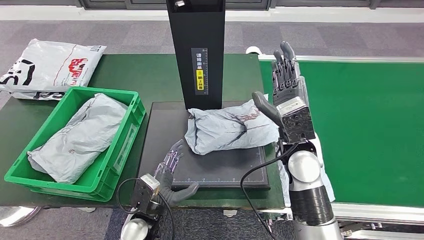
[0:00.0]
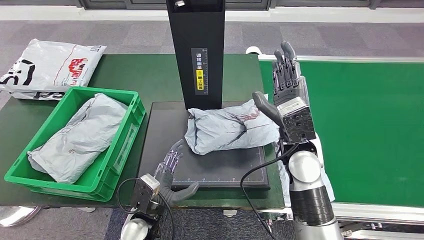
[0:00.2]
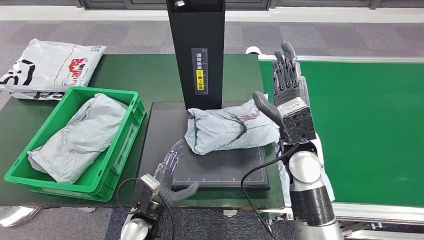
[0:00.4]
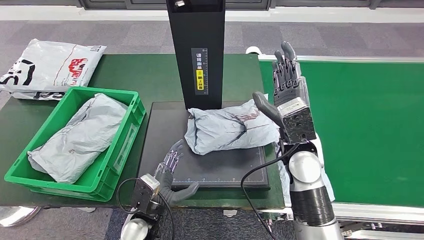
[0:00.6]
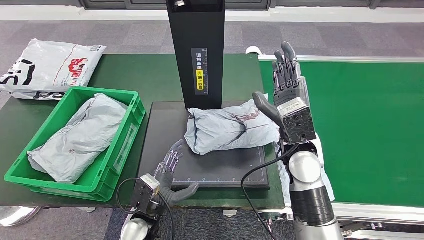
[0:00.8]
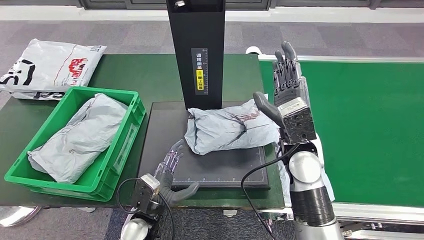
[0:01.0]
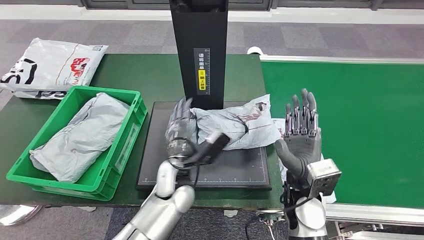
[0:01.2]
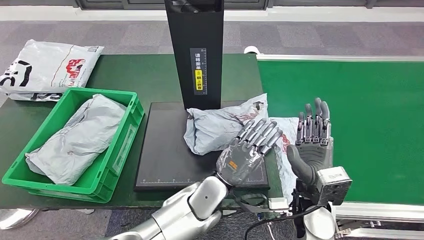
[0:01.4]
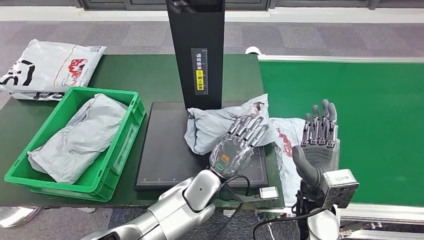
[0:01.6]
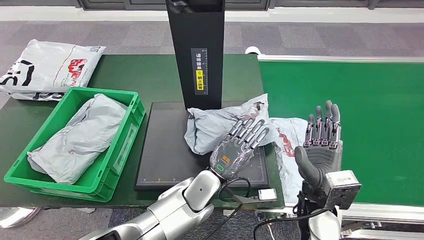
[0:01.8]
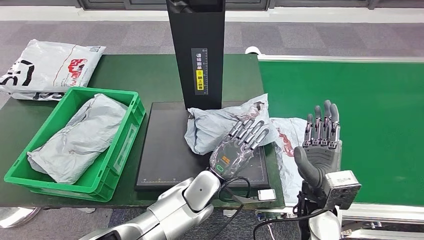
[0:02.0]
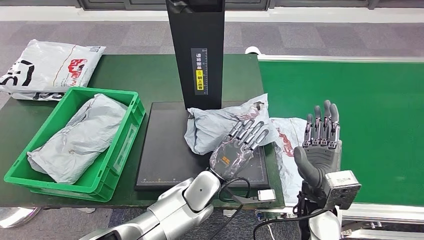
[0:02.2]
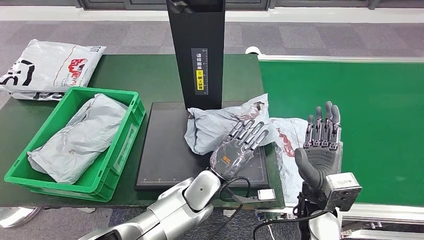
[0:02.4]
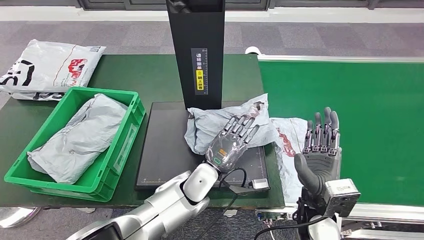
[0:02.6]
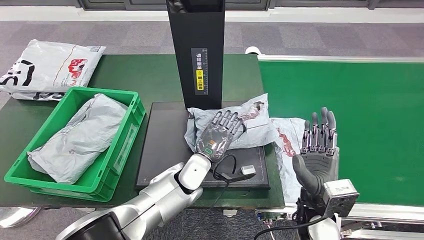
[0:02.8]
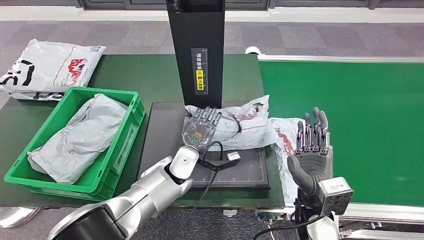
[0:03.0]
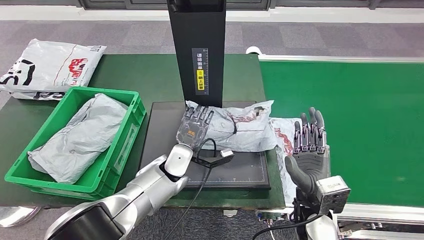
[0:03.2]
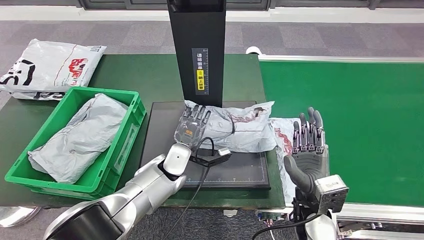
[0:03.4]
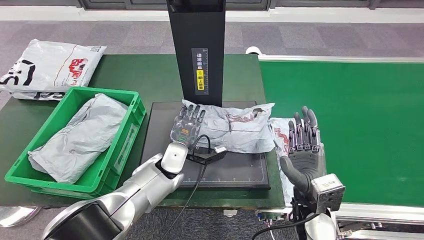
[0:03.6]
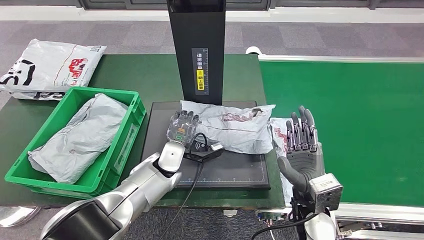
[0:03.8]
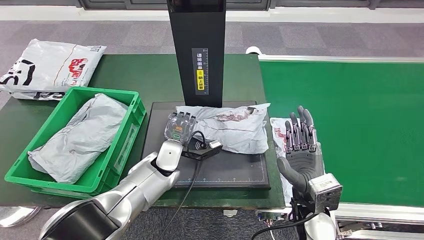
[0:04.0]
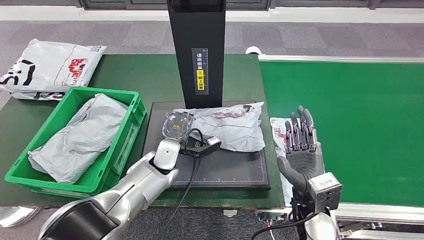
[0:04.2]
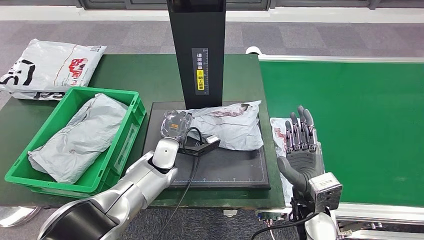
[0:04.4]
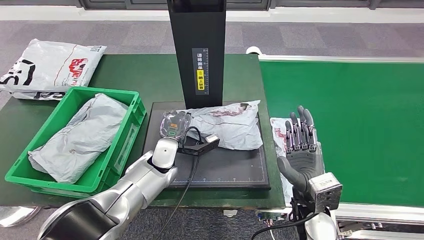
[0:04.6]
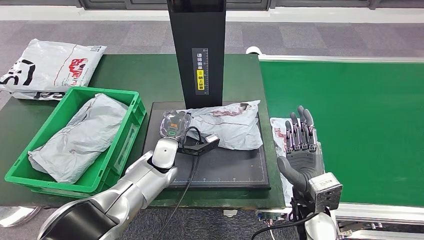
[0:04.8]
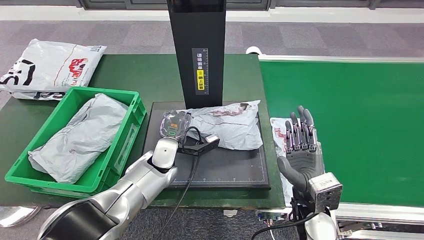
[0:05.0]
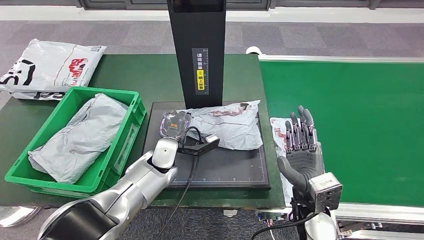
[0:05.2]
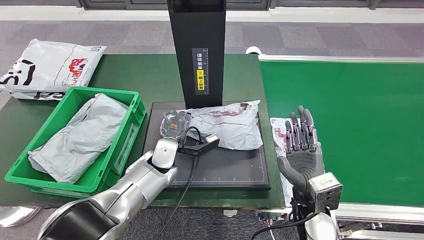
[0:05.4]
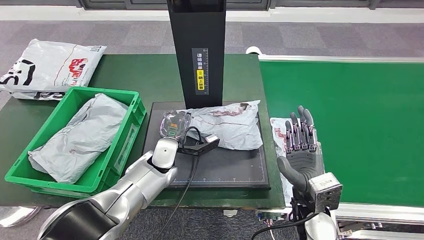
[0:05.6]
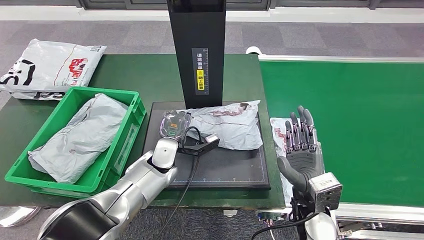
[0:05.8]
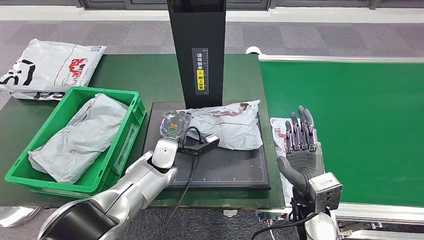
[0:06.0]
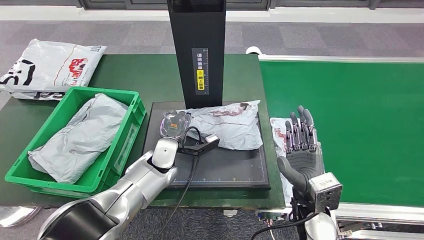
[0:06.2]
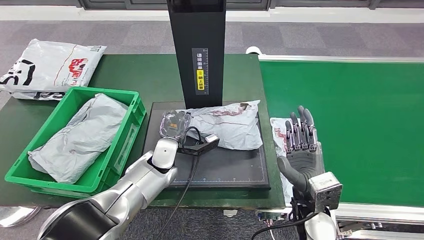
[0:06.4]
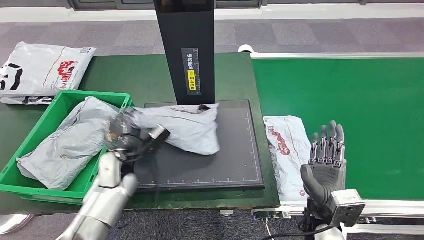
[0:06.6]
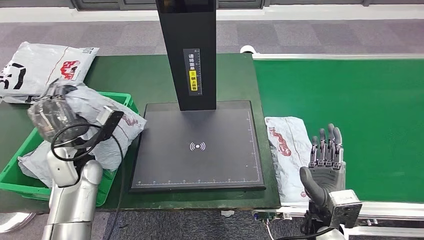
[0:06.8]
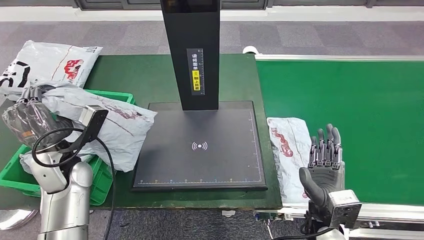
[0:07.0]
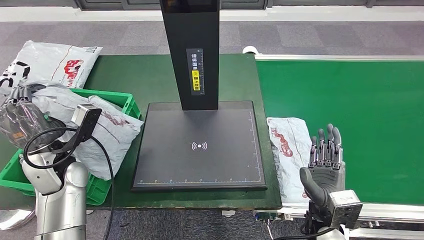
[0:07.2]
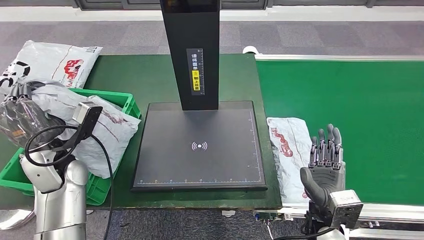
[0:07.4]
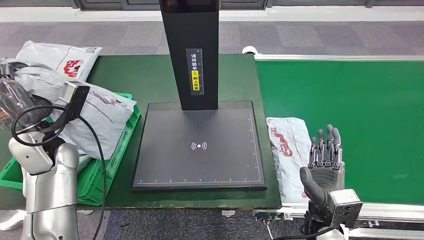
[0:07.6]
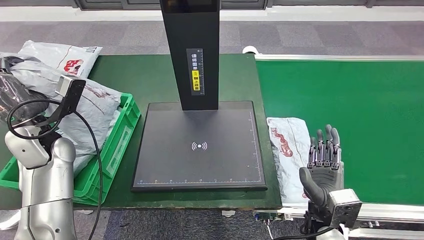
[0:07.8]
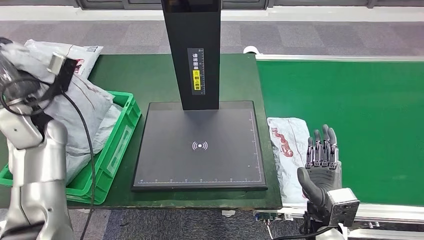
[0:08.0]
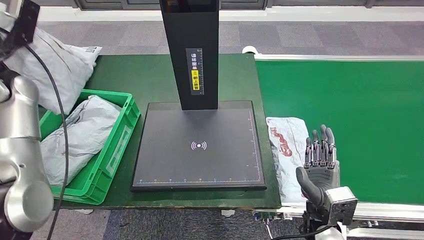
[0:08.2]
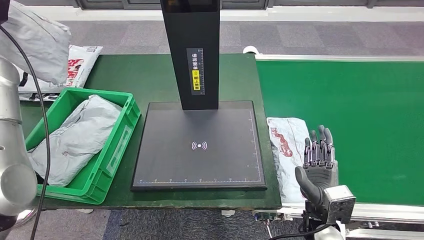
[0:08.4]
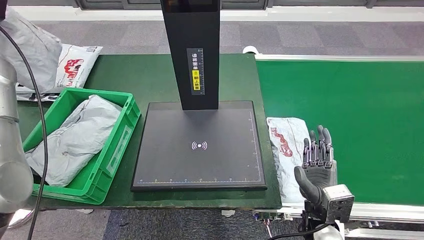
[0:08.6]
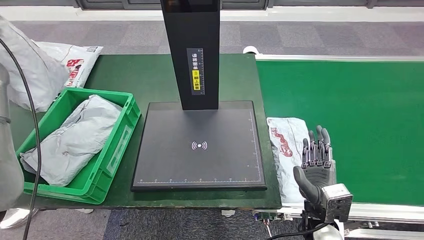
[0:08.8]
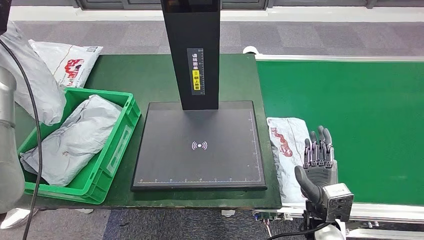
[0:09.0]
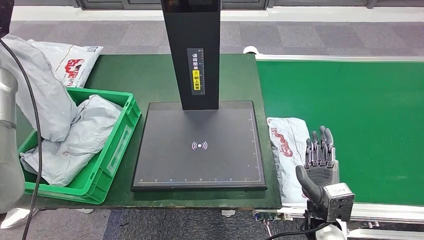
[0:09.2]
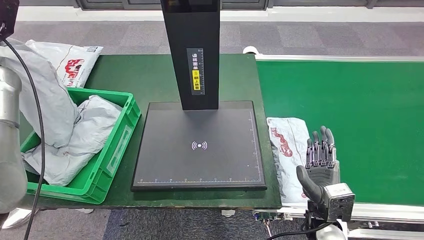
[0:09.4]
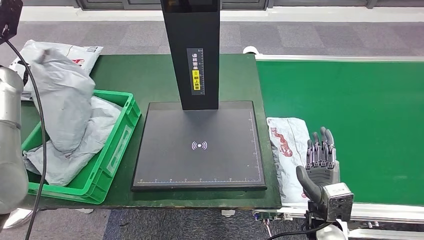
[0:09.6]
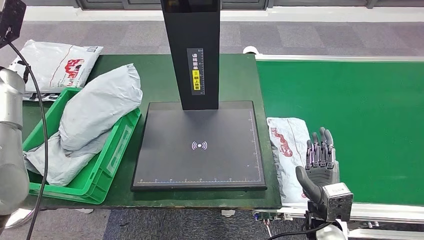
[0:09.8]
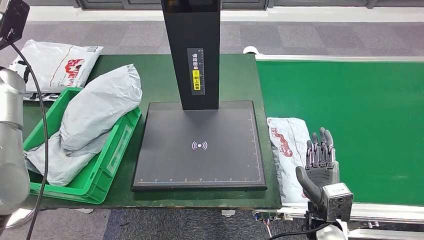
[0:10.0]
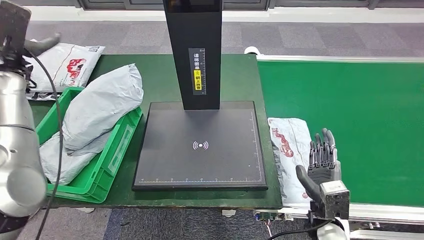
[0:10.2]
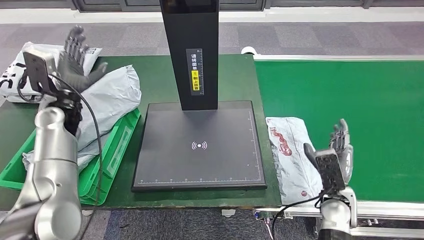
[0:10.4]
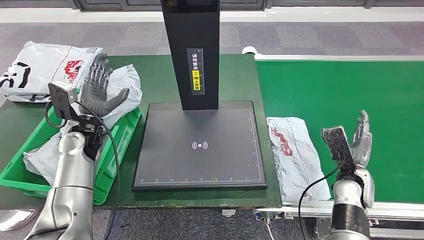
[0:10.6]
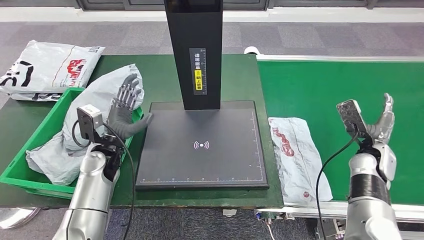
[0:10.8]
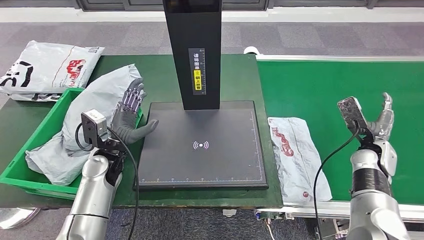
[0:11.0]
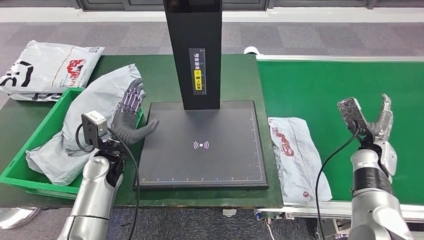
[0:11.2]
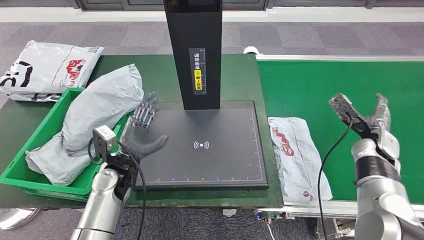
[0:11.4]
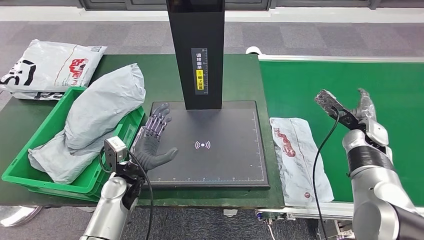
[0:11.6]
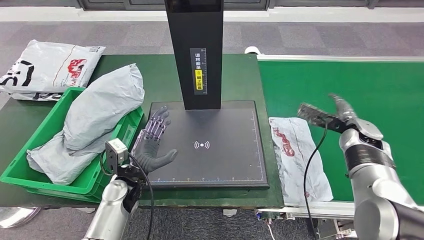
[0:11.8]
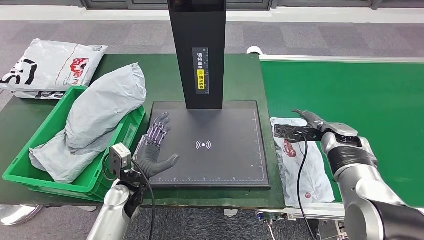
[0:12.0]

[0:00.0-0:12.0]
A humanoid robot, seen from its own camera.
Step, 0:00.8 to 0:07.8: Pick up the parcel from the inbound machine.
Step, 0:08.0 to 0:11.0: Place the parcel into the delivery box.
0:00.0 to 0:01.6: The left hand heads to the right, upward and forward, covering about 20 cm, while the right hand is displaced backward and downward by about 15 cm.
0:01.6 to 0:03.0: The left hand heads to the left and forward, covering some 10 cm.
0:03.0 to 0:04.4: The left hand ends up roughly 5 cm from where it was.
0:04.4 to 0:06.0: Both hands stay put.

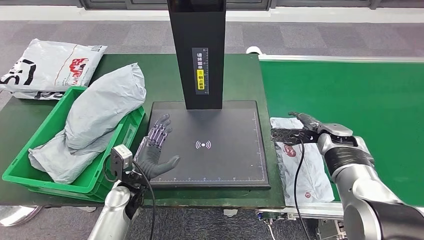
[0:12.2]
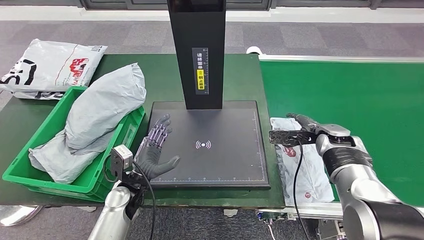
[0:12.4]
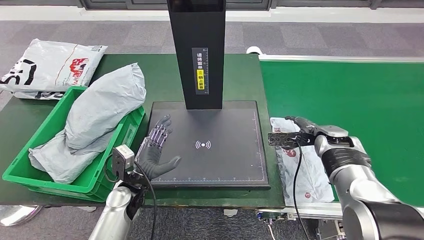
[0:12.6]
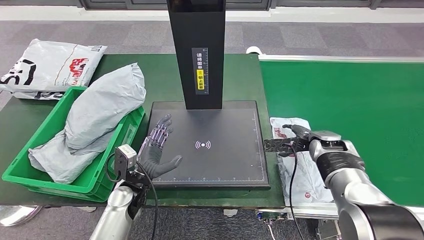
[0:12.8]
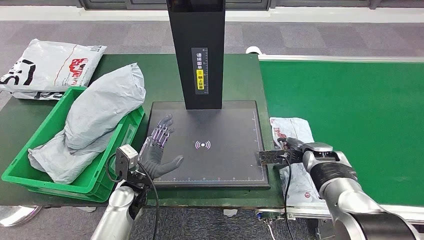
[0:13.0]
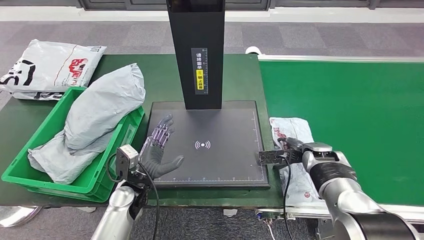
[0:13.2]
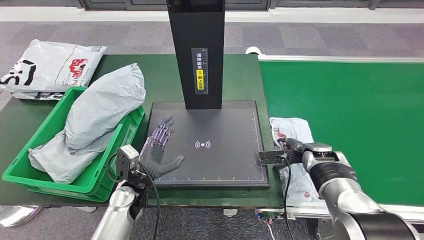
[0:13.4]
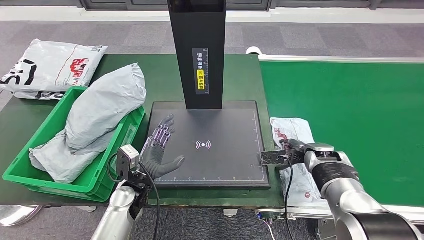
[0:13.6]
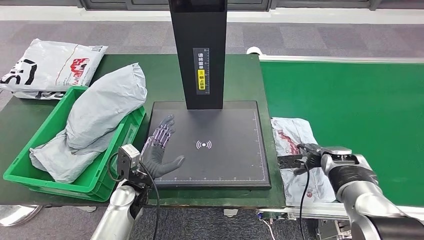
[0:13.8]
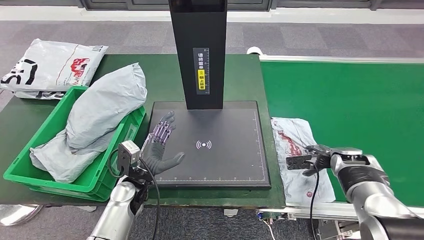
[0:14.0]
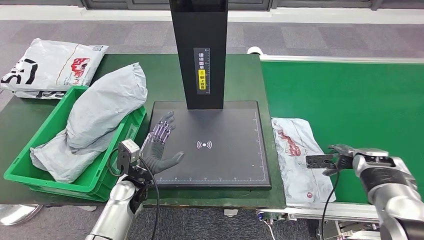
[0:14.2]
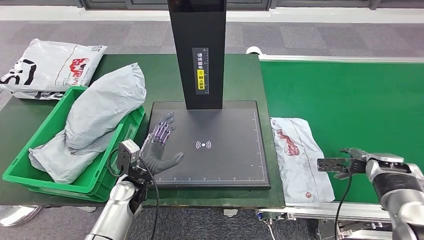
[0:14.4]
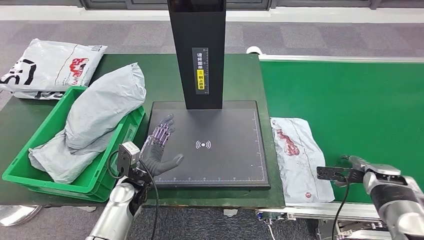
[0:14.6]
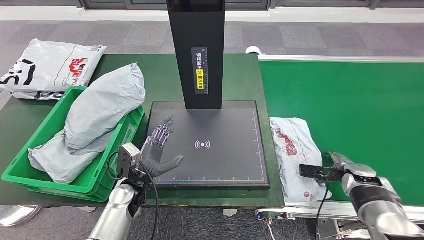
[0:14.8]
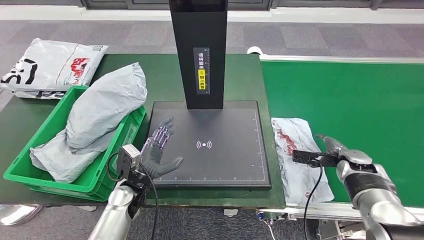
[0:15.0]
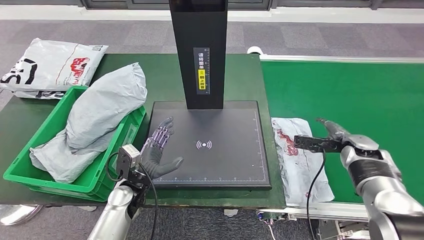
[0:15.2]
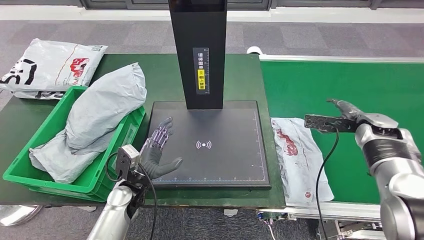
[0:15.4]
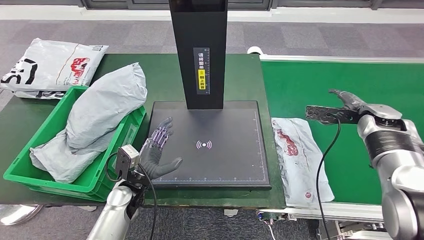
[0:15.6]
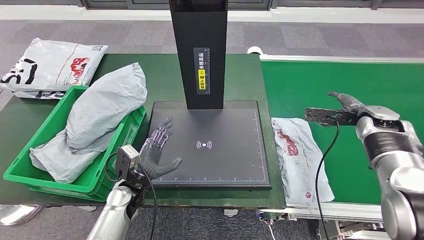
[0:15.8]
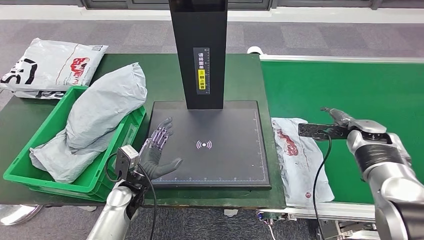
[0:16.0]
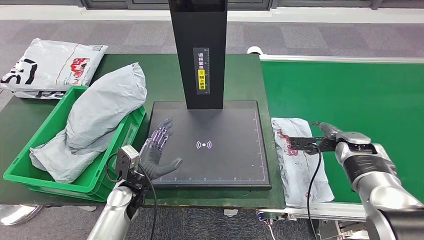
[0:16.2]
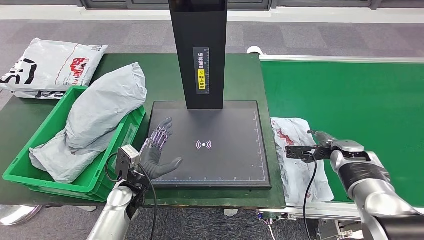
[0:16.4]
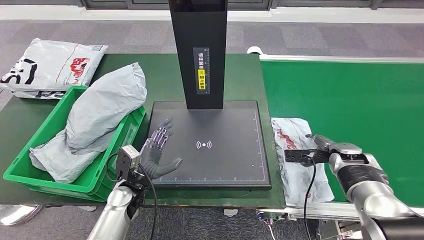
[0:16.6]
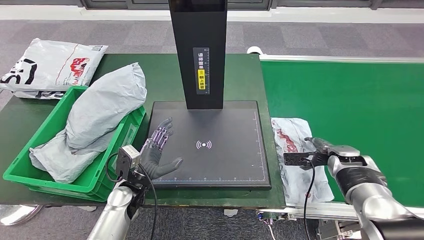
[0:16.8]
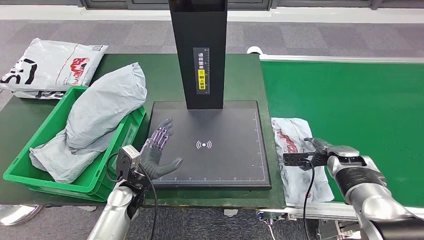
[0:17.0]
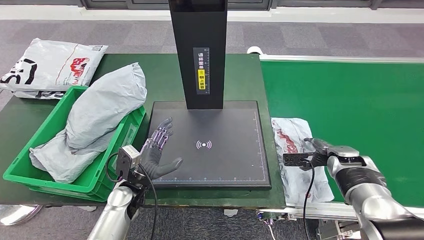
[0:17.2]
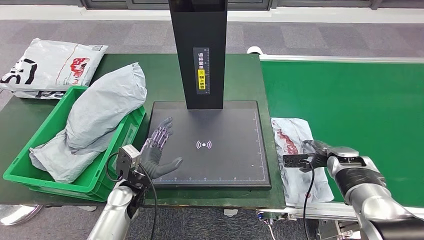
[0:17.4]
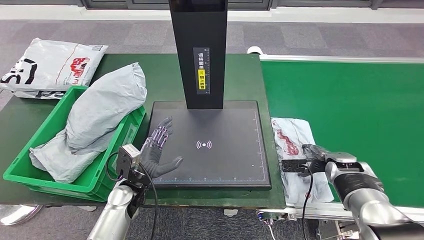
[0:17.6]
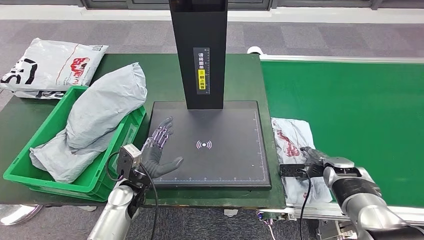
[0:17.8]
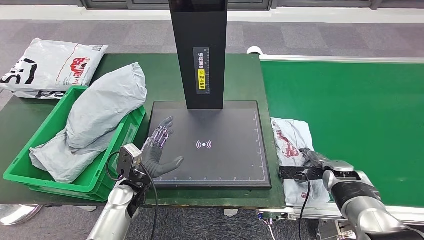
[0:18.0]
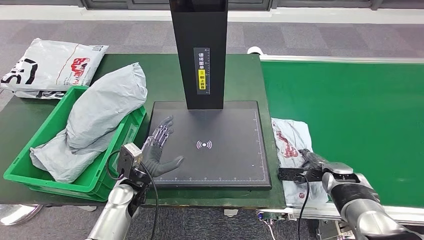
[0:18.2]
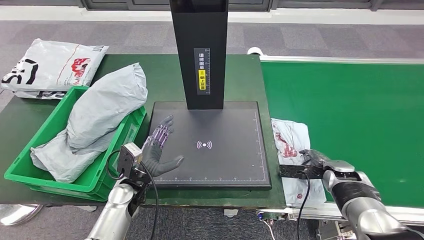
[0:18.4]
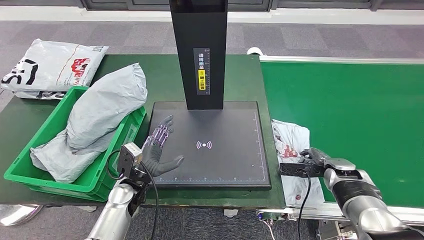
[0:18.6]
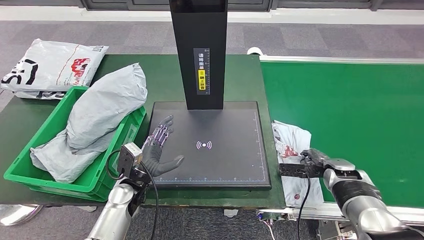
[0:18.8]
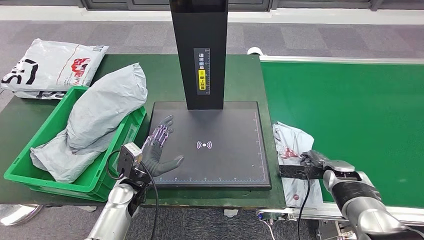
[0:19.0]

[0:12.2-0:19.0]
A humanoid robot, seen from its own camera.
0:12.2 to 0:13.6: The right hand shifts approximately 5 cm downward.
0:13.6 to 0:15.0: The right hand is displaced to the right by some 10 cm.
0:16.2 to 0:17.6: The right hand goes roughly 5 cm downward.
0:17.6 to 0:19.0: There are only small adjustments of the hands.
